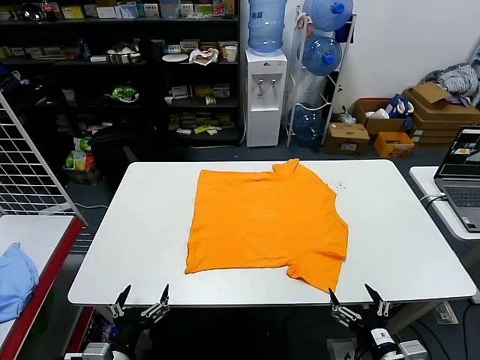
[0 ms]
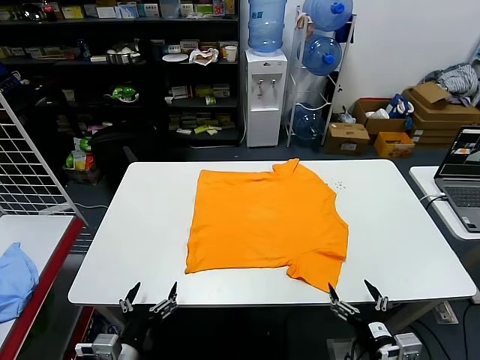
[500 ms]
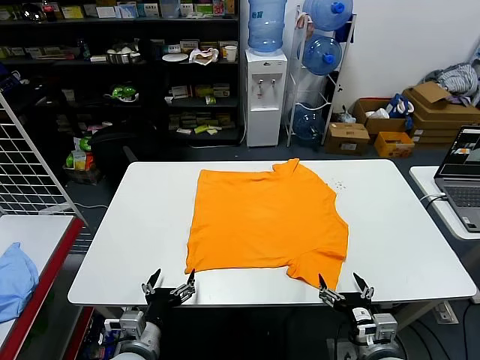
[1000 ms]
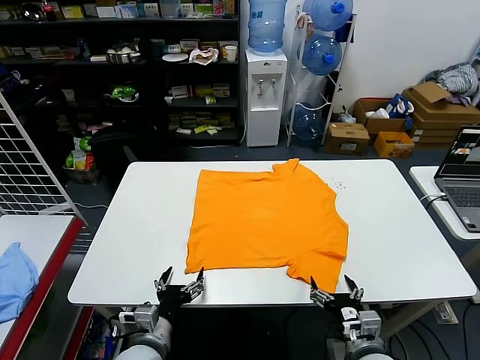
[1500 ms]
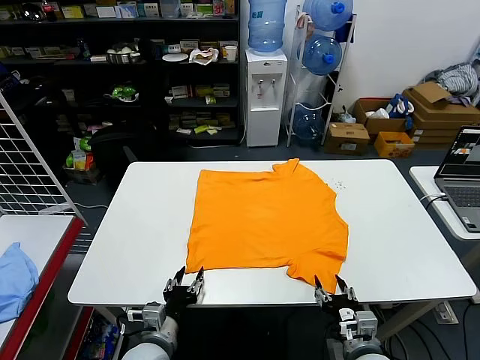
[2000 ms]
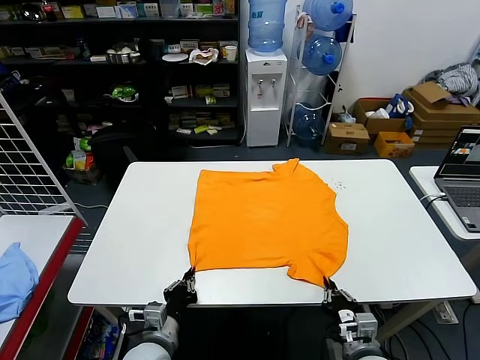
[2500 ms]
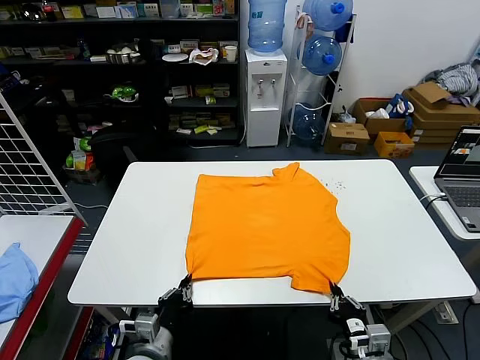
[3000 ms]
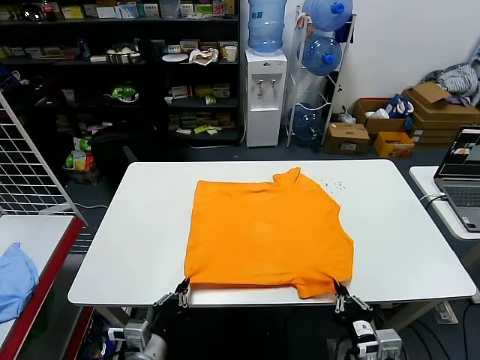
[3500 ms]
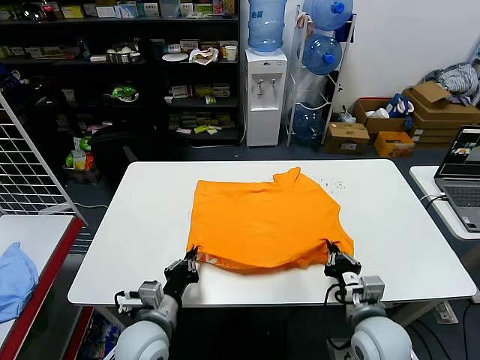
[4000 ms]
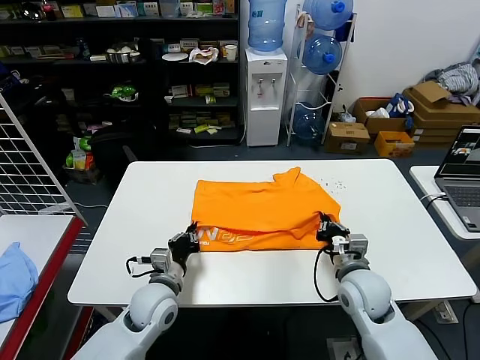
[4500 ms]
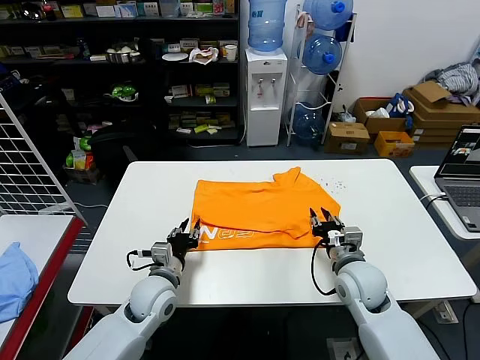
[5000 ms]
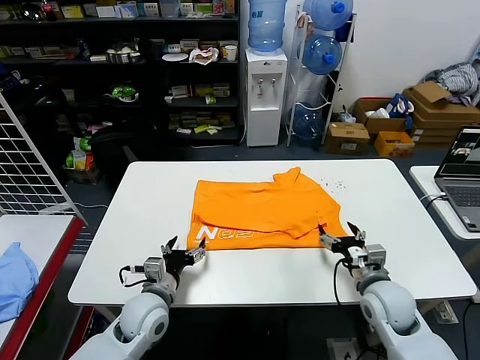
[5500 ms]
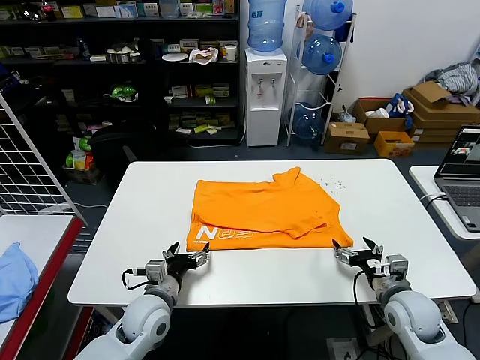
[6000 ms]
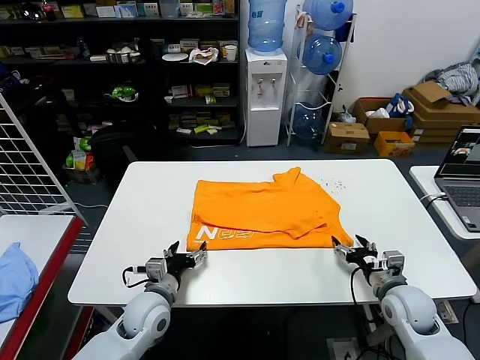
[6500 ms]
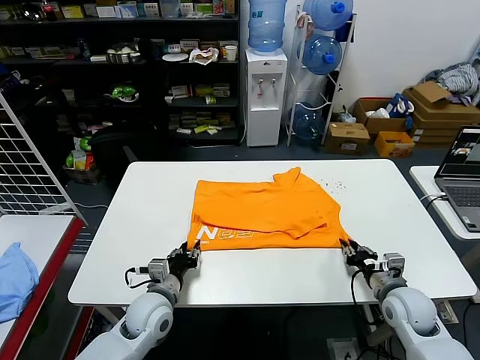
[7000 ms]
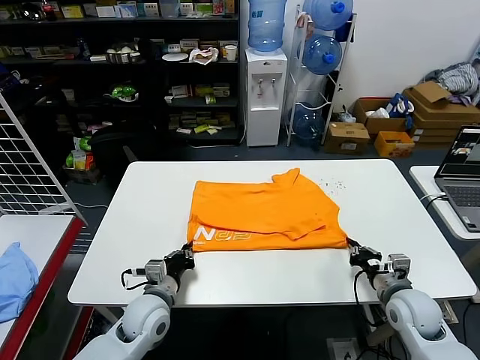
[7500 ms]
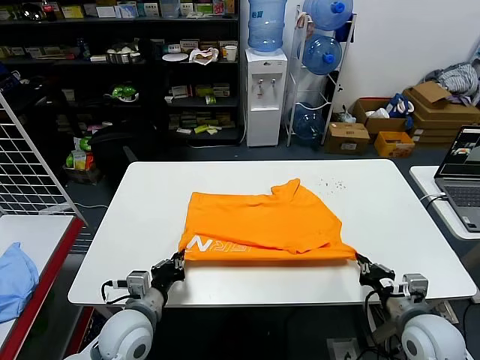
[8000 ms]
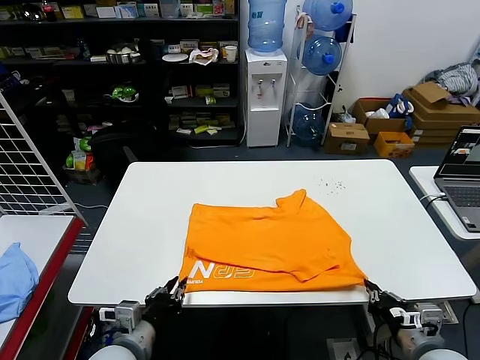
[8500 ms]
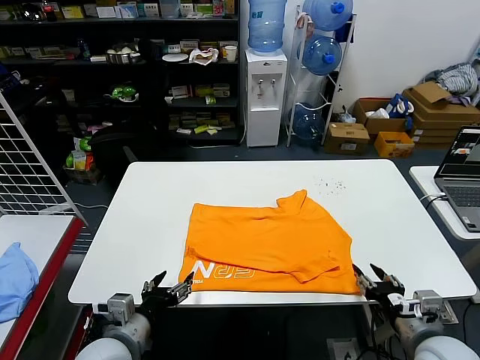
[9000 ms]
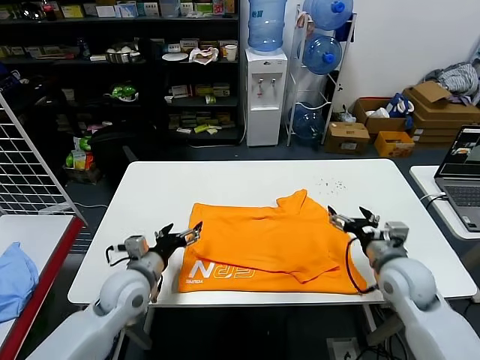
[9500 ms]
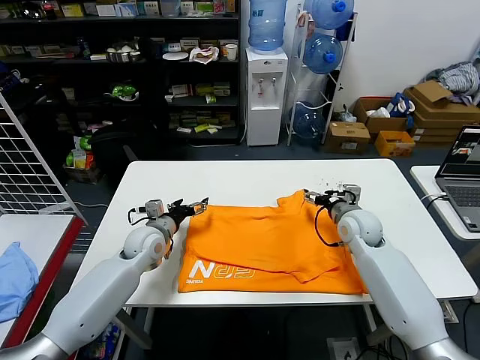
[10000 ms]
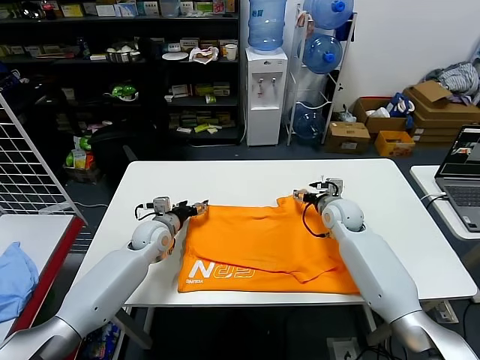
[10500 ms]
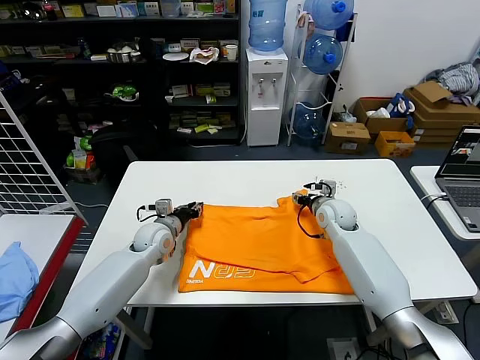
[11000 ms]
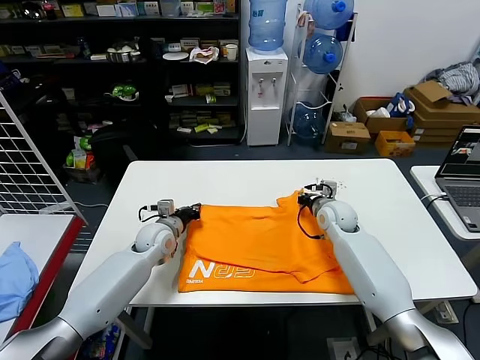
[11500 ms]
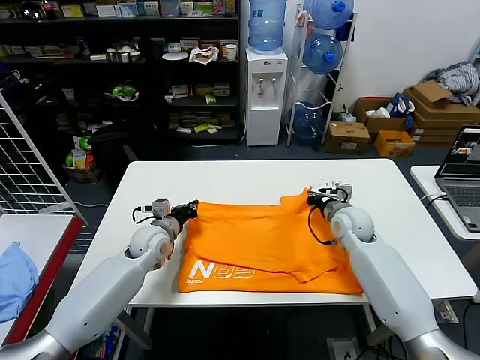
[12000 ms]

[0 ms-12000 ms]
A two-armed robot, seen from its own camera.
Task of the whole recording: fold and organize the clothes.
Step, 0 ms to 2000 ms: use both grippers simultaneously to clamp the lower edge of the clothing fabric.
Step, 2500 ms to 4500 ms: use both grippers to drag the lower edge of the fabric forward and fold it over the upper edge.
Step, 5000 ms to 8500 ms: Drag the clothes downward with both gripper.
Step, 9000 ms to 11000 ms: use both grippers simultaneously to clamp the upper edge of the clothing fabric.
2000 ms to 4000 ms: The right gripper goes about 10 cm forward and upward, and closes up; the left gripper ends up about 5 cm from where it was, and closes up.
4000 ms to 6000 ms: The right gripper heads to the right, covering some 10 cm, and opens its fingers. Meanwhile the left gripper is displaced forward by some 5 cm, and opens up.
6000 ms to 8000 ms: The right gripper goes some 5 cm backward, and closes its fingers, while the left gripper ends up about 5 cm from where it was, and closes its fingers.
8000 ms to 10000 ms: The grippers both shift forward by approximately 25 cm. The left gripper opens its fingers; the right gripper opens its fingers.
10000 ms to 12000 ms: The left gripper closes its fingers, while the right gripper closes.

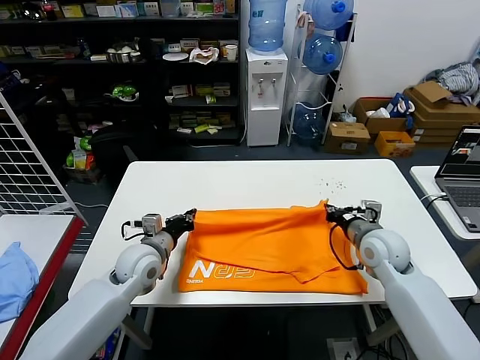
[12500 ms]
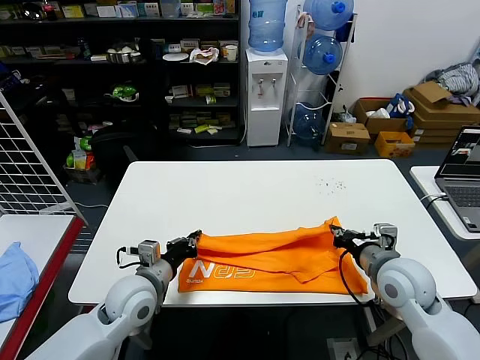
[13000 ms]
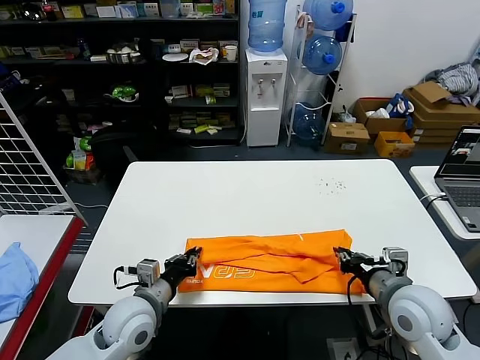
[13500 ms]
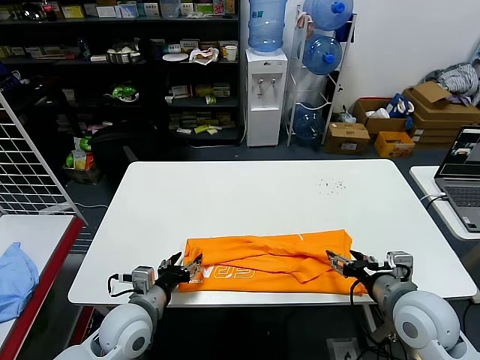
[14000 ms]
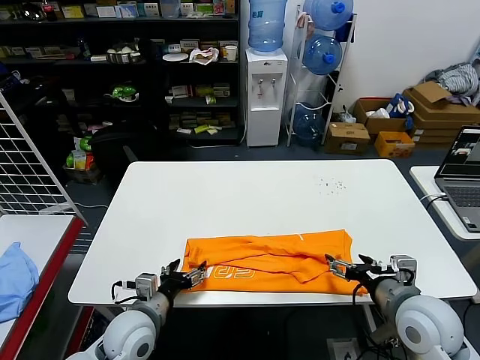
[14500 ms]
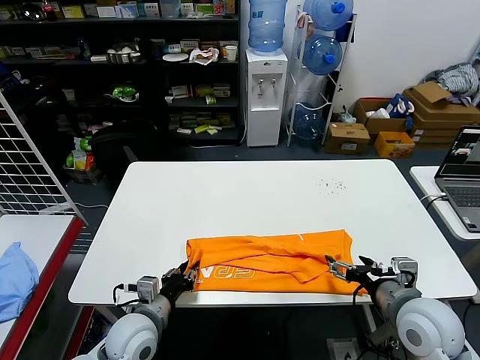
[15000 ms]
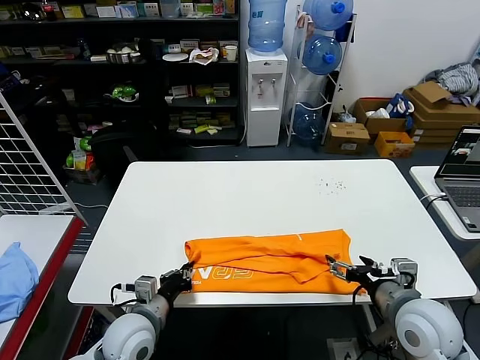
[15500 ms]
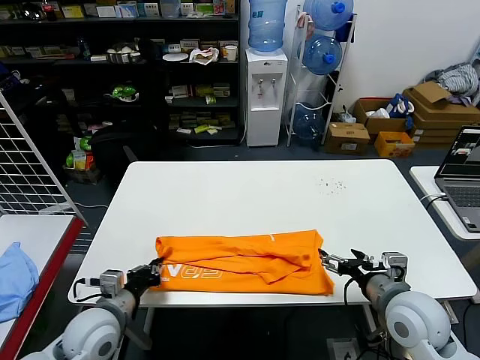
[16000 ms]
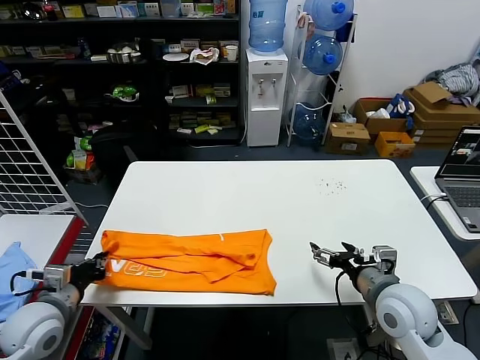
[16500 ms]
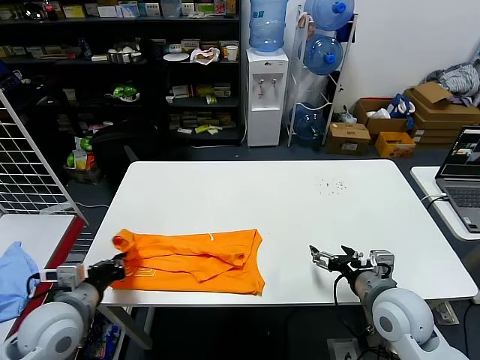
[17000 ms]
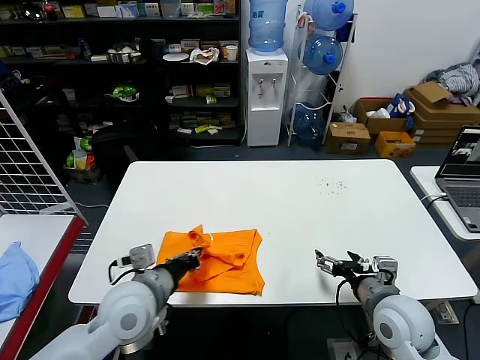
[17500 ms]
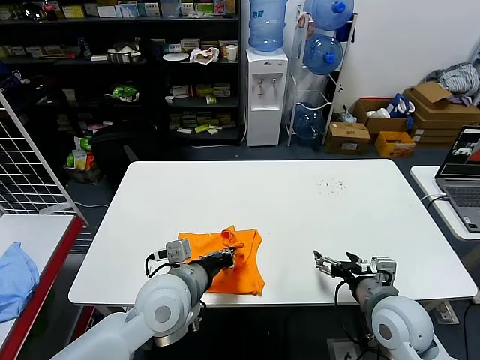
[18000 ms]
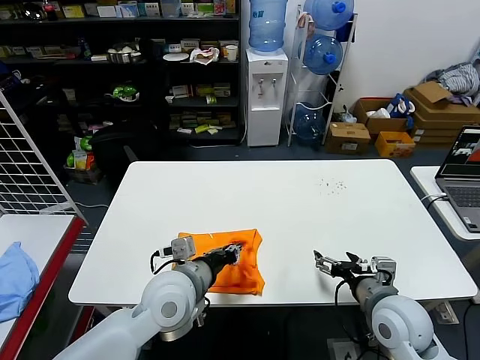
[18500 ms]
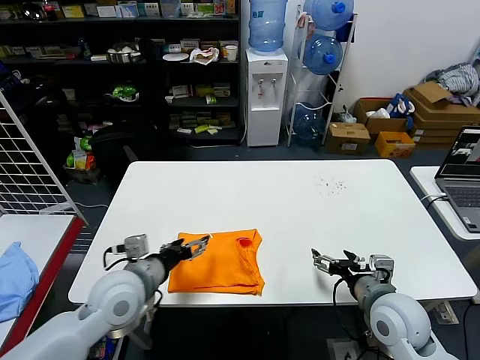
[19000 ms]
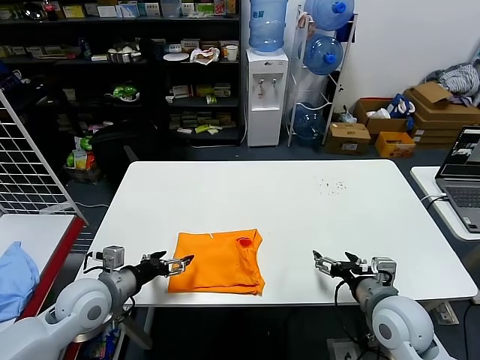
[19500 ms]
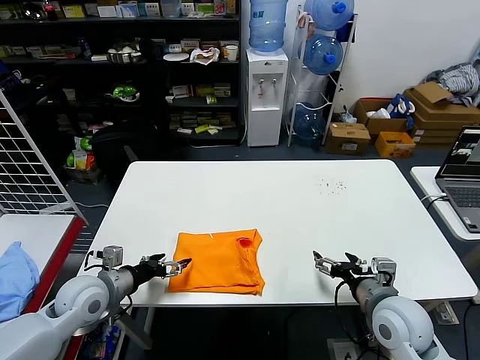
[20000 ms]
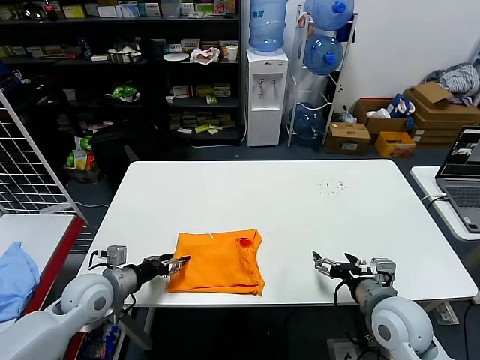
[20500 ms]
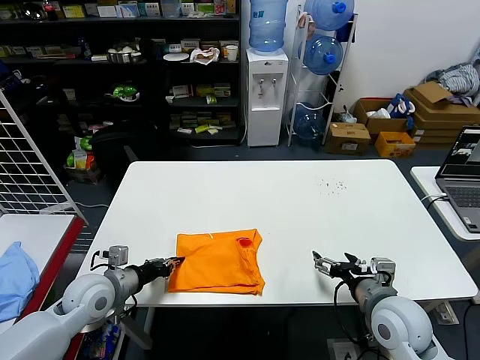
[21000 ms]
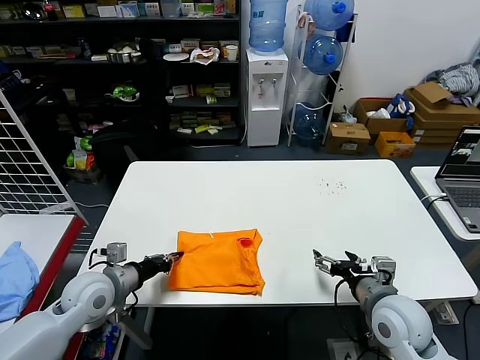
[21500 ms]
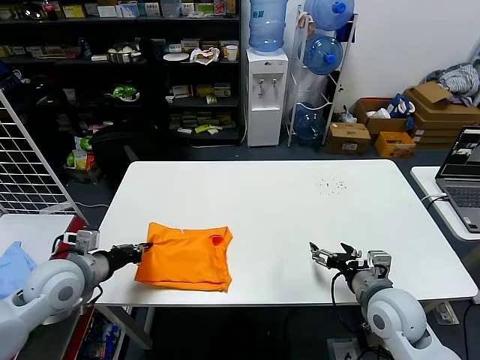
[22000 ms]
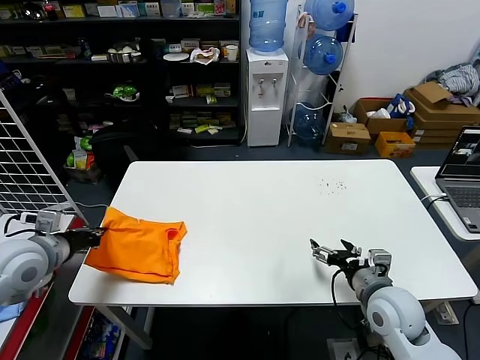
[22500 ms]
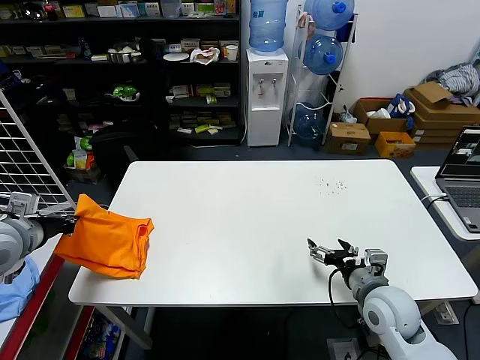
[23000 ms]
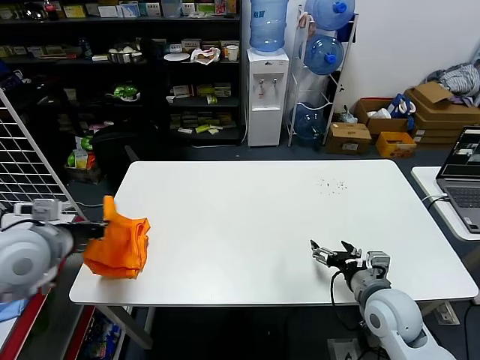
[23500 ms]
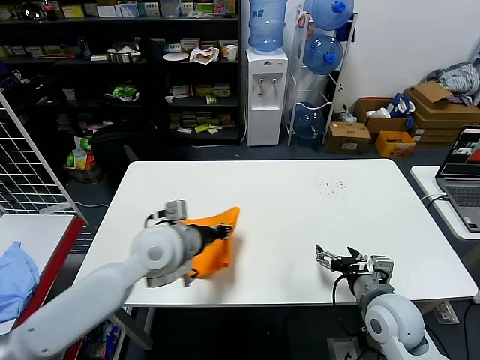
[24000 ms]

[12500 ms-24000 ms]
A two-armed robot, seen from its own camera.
Task of the whole recording: fold and organize the clothes.
Step, 14000 ms to 15000 ms: use the left gripper to clamp the left edge of the fabric.
Step, 15500 ms to 18000 ms: use the left gripper to drag the left edge of the fabric to the left and folds it over the right edge.
12500 ms to 14500 ms: The grippers both shift backward by approximately 15 cm. The left gripper opens its fingers; the right gripper opens up.
14500 ms to 16500 ms: The left gripper moves to the left and upward, approximately 15 cm, and closes.
16500 ms to 18500 ms: The left gripper travels to the right by about 25 cm.
18500 ms to 20000 ms: The left gripper goes roughly 20 cm to the left, and opens its fingers.
20000 ms to 22000 ms: The left gripper travels upward by about 5 cm, and closes its fingers.
22000 ms to 24000 ms: The left gripper goes approximately 15 cm to the right.

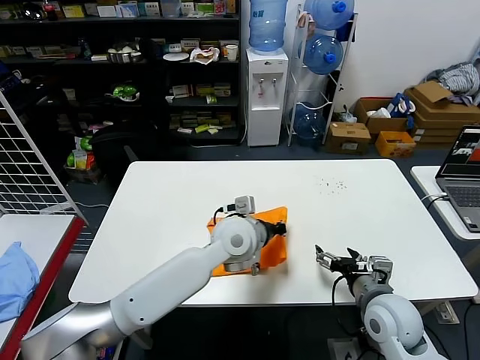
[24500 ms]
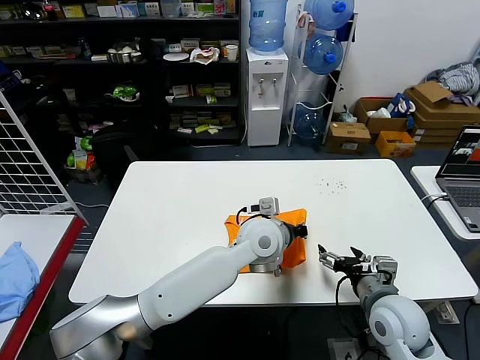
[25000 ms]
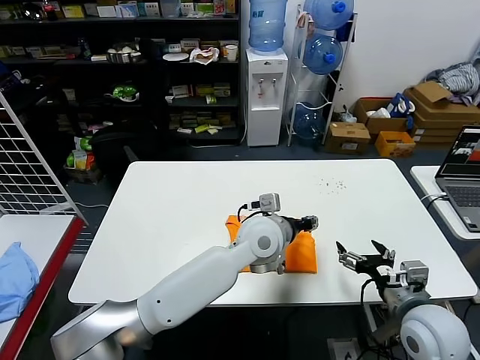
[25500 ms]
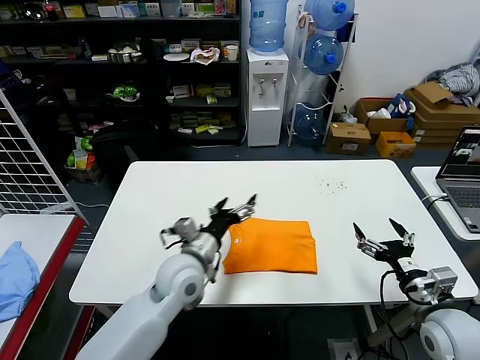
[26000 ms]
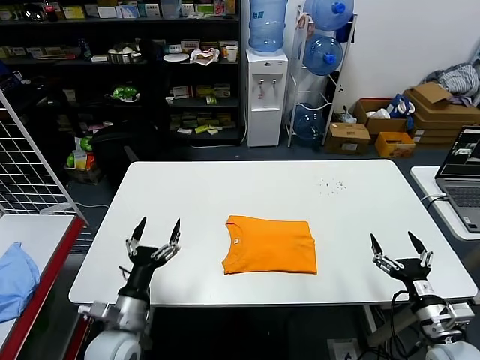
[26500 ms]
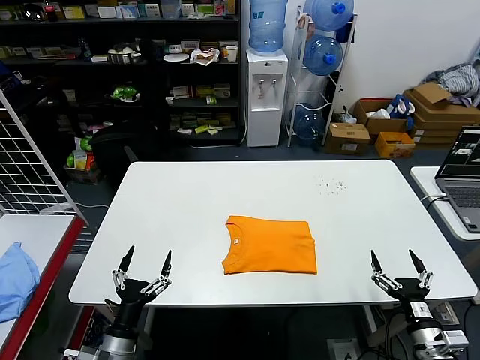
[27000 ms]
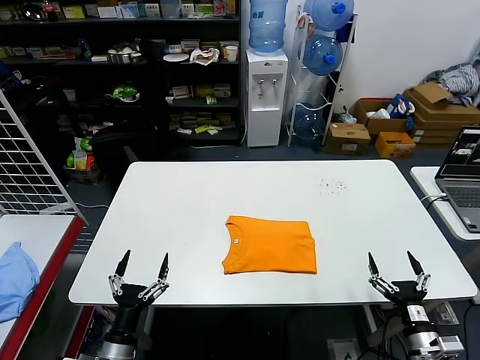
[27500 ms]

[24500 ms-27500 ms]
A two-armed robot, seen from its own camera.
Task of the whole recording: fold and organize the clothes.
24500 ms to 26000 ms: The right gripper goes roughly 10 cm to the right. Meanwhile the left gripper goes about 10 cm to the left, and opens up.
26000 ms to 27500 ms: The right gripper travels downward and backward by some 15 cm. Meanwhile the left gripper shifts approximately 30 cm backward, to the left and downward.
